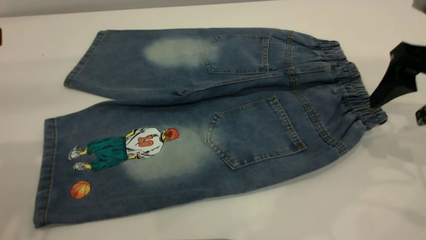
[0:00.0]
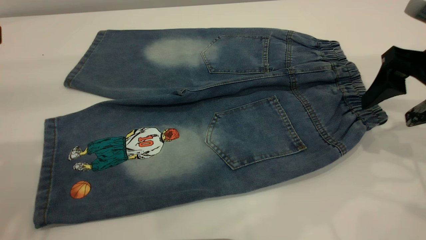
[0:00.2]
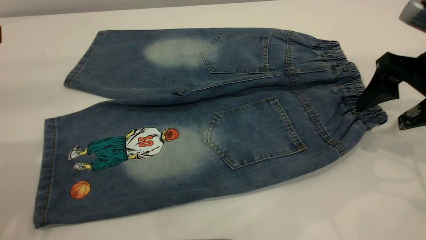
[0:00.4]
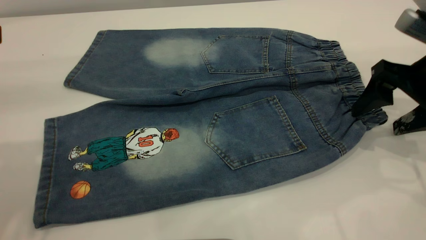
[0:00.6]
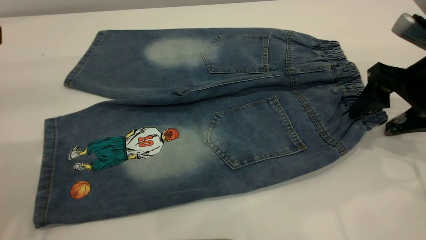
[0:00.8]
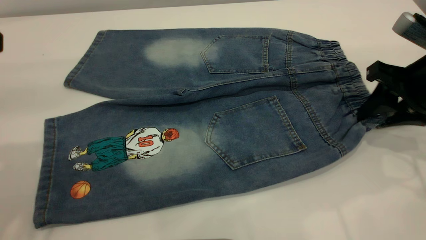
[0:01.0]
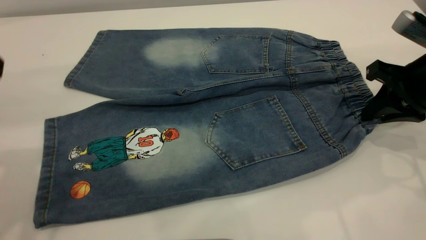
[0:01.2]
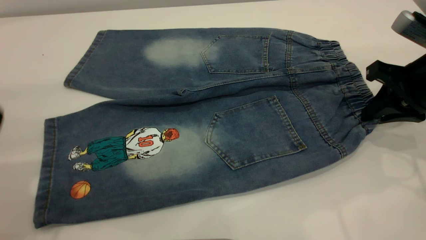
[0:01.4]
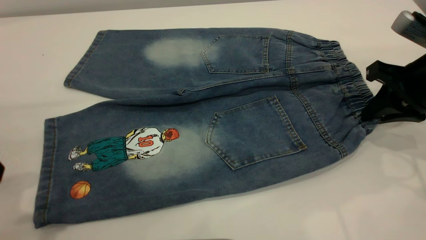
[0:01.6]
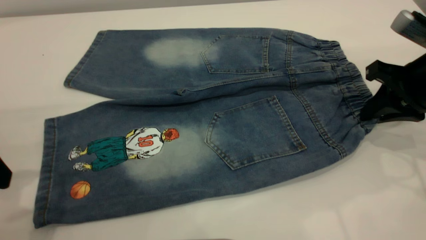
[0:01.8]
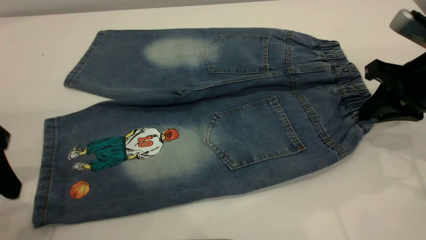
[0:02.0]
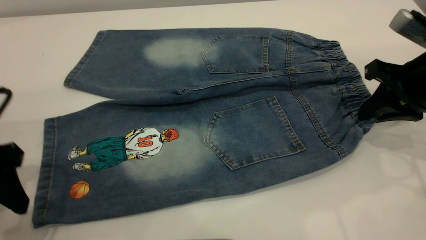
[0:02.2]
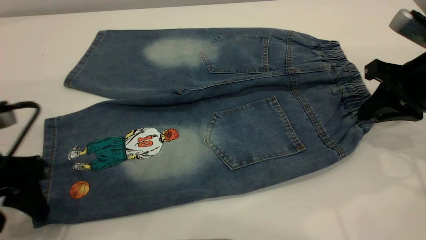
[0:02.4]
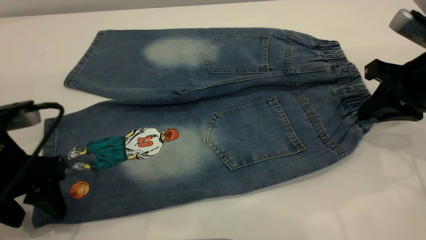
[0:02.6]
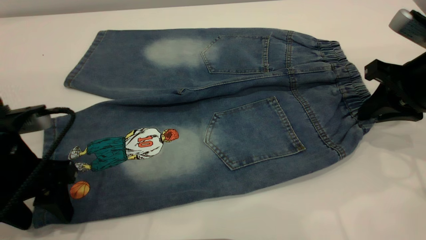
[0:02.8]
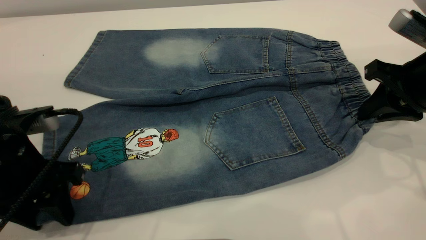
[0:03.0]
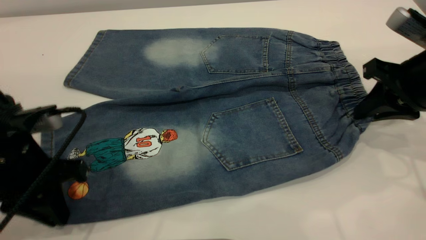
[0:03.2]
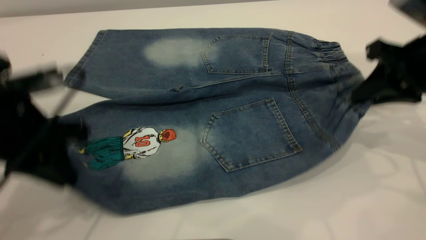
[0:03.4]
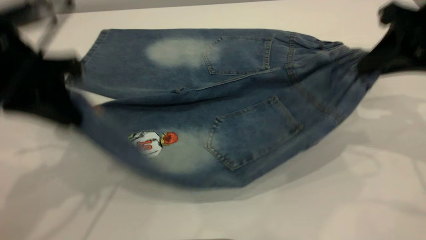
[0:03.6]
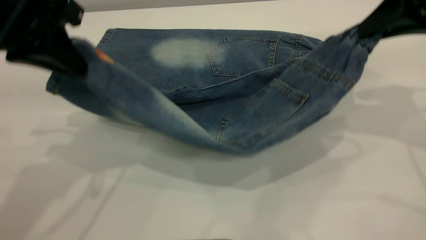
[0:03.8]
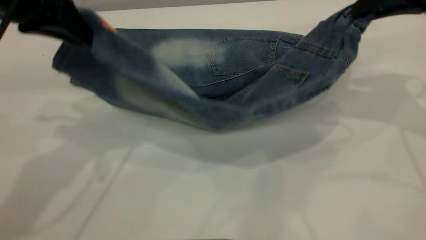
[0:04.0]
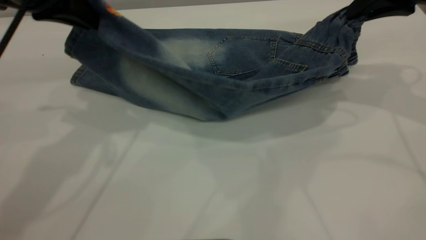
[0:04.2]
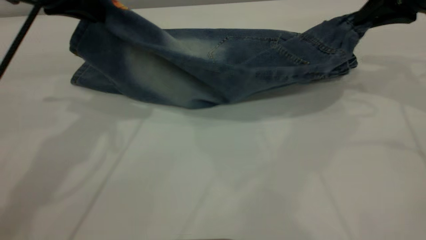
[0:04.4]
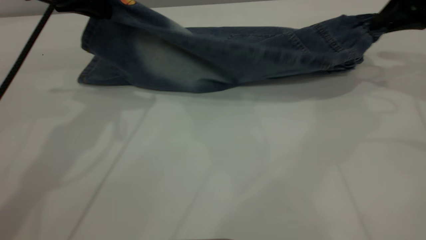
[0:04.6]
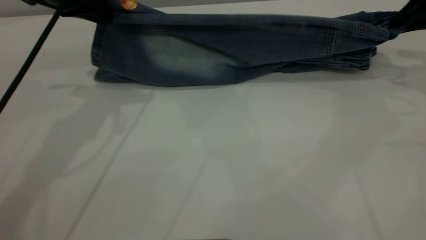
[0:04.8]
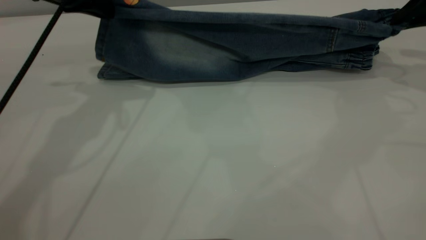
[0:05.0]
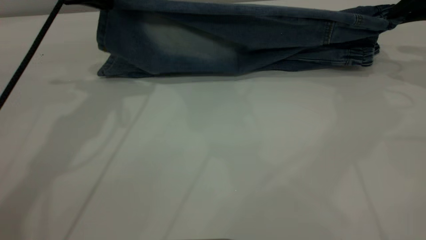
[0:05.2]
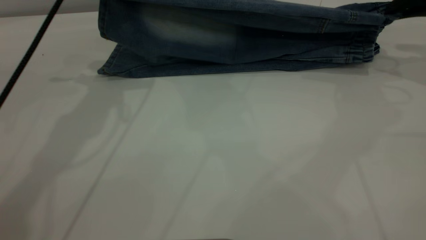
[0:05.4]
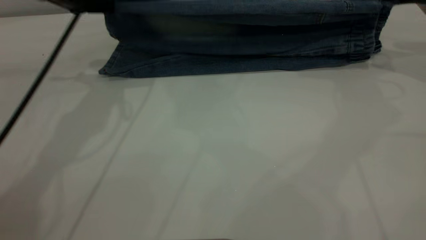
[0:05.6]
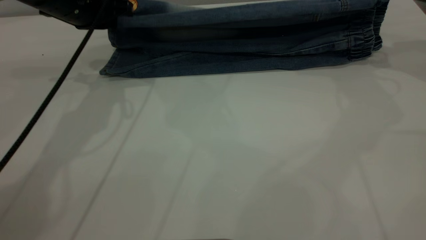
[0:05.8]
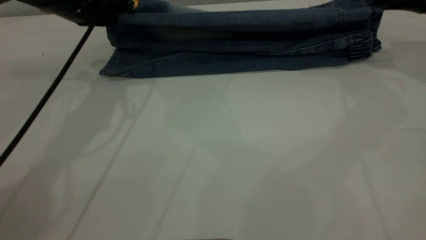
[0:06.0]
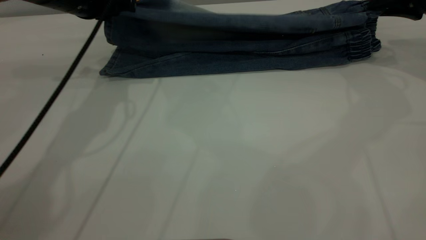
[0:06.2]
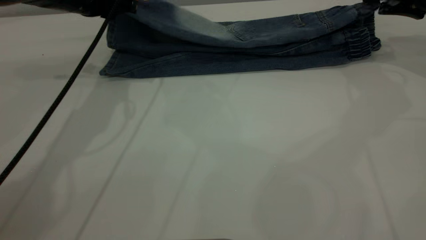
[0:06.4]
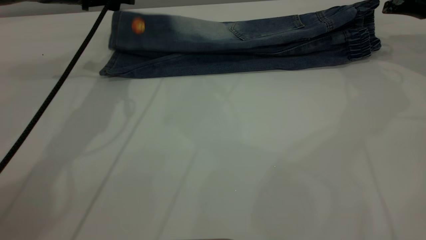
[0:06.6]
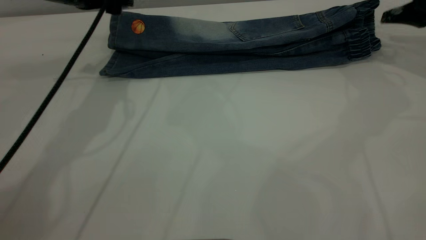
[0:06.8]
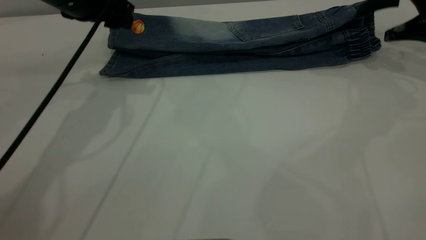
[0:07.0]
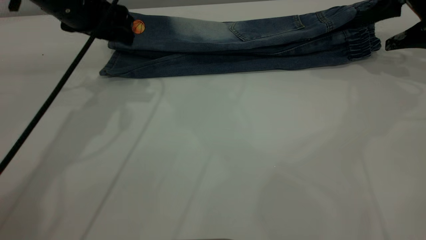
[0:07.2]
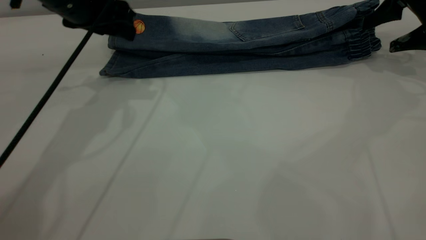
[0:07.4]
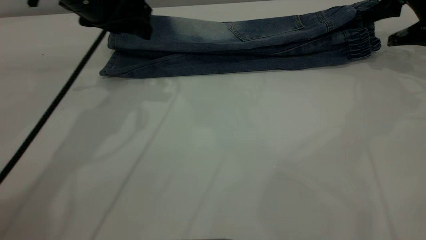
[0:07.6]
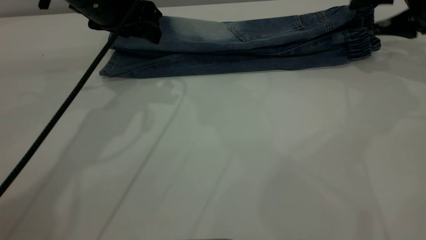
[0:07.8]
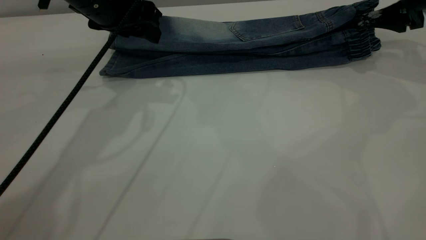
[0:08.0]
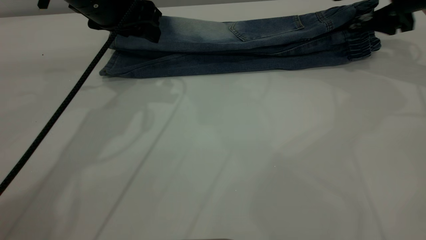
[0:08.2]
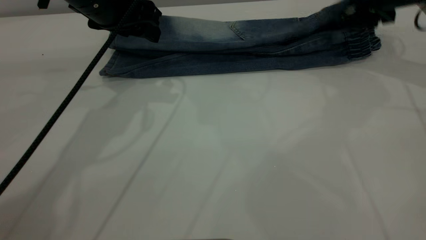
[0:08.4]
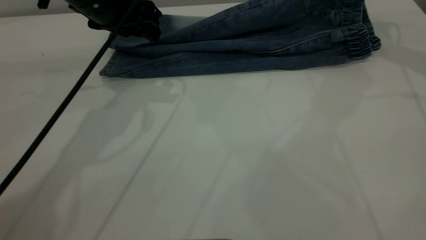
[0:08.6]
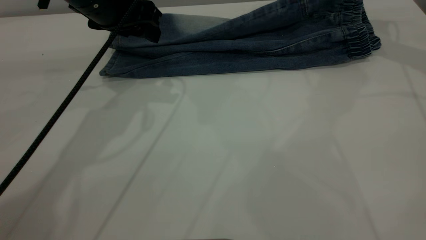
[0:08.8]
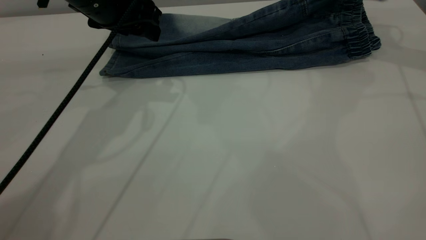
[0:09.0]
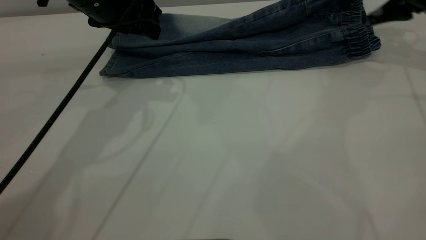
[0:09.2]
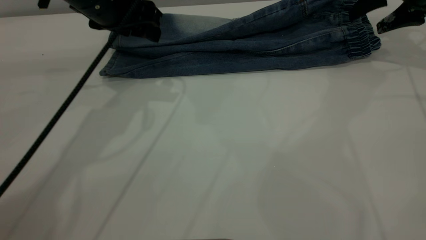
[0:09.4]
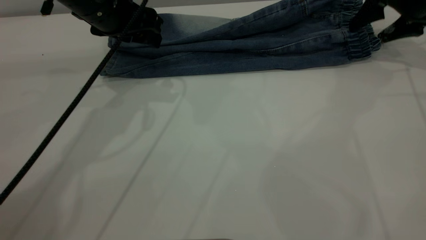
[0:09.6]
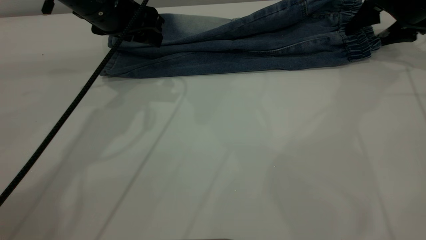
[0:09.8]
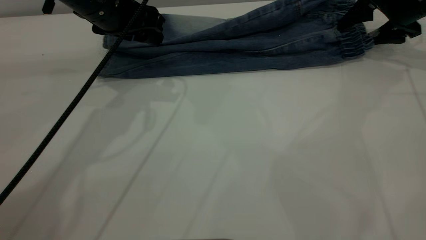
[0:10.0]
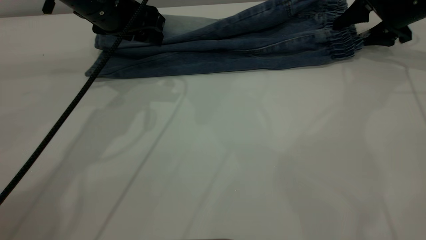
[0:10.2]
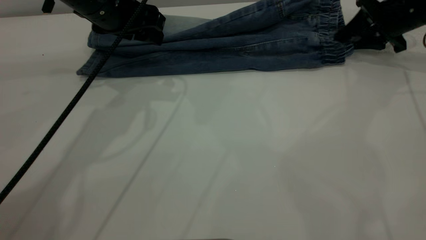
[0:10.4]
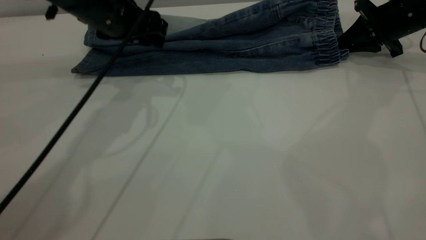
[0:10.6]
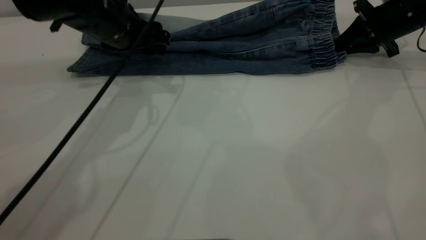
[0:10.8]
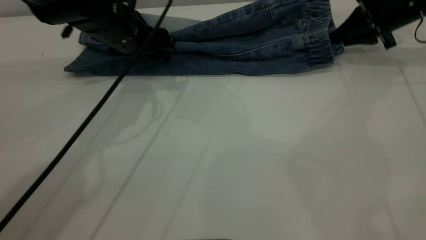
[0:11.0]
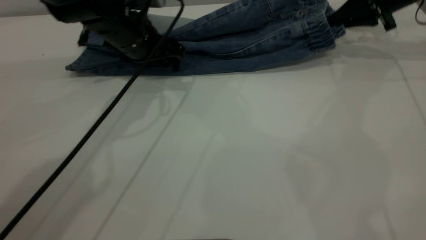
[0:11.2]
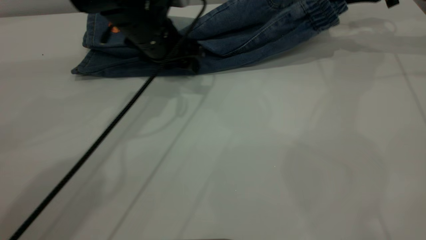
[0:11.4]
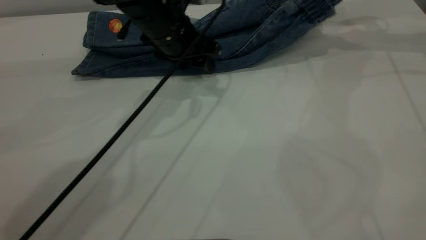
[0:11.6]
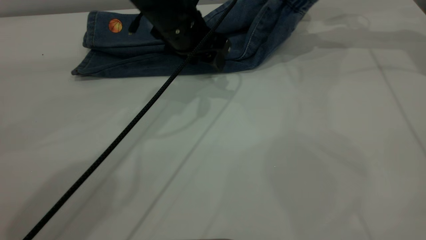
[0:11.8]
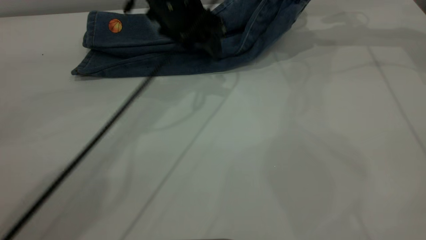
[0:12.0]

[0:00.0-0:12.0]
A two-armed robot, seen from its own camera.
Step, 0:00.0 to 0:06.6: Fold the bottom of the pants upward.
0:00.0 to 0:01.6: The right gripper closes its fingers.
0:01.6 to 0:03.0: The left gripper moves downward, roughly 10 cm, and closes its fingers.
0:03.0 to 0:04.4: The left gripper travels upward and forward by approximately 20 cm, and closes up. Meanwhile the right gripper heads forward and upward, covering roughly 10 cm.
0:04.4 to 0:06.0: The left gripper shifts some 10 cm forward and downward. The right gripper shifts roughly 5 cm to the right.
0:06.0 to 0:07.6: The left gripper opens; the right gripper opens up.
0:07.6 to 0:09.0: The right gripper moves some 10 cm.
0:09.0 to 0:10.4: The right gripper moves downward, approximately 10 cm, and closes.
0:10.4 to 0:12.0: The left gripper goes some 10 cm to the right. Meanwhile the right gripper heads upward and forward, covering approximately 15 cm.

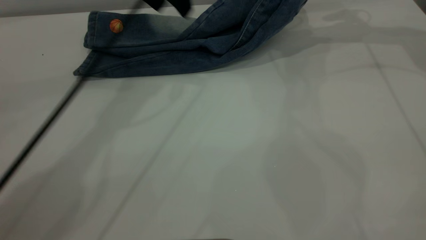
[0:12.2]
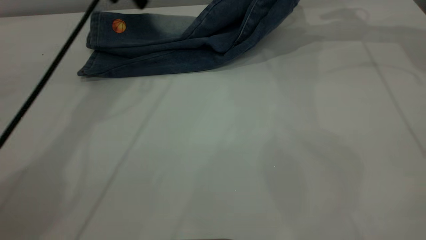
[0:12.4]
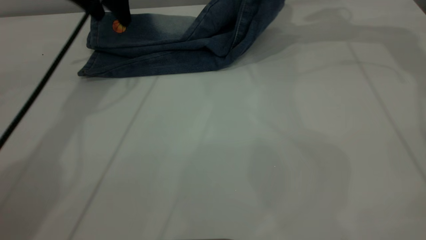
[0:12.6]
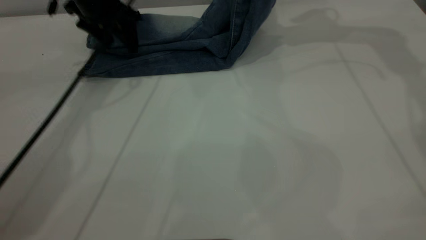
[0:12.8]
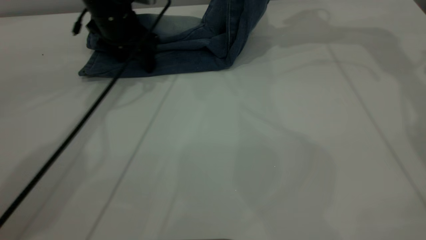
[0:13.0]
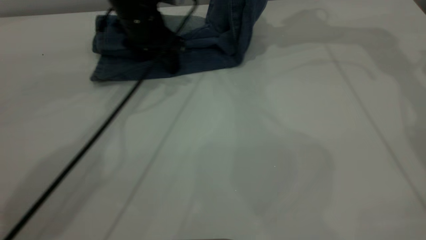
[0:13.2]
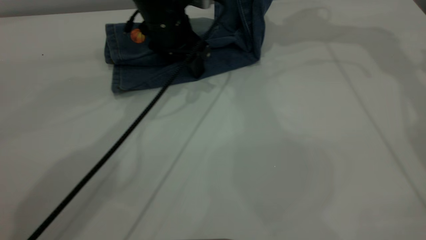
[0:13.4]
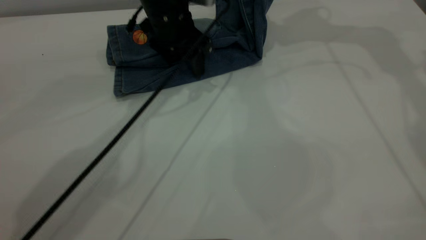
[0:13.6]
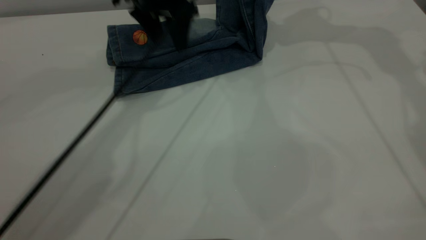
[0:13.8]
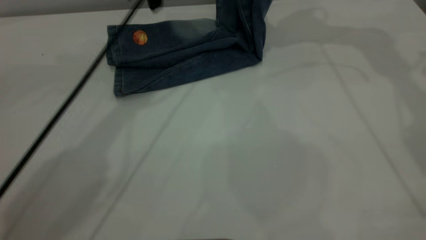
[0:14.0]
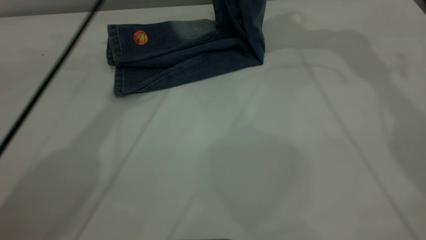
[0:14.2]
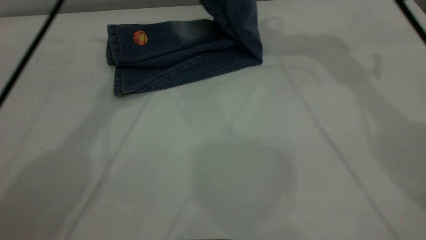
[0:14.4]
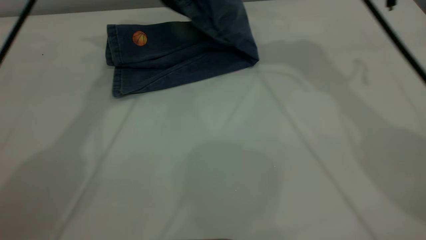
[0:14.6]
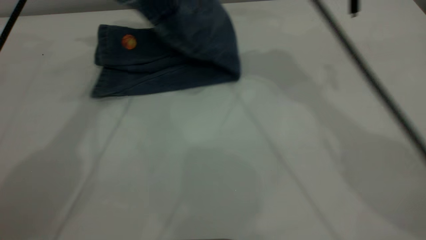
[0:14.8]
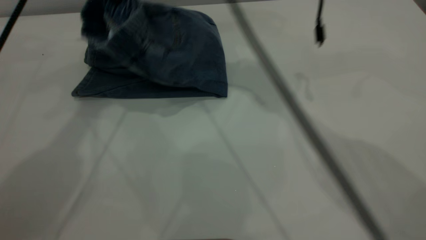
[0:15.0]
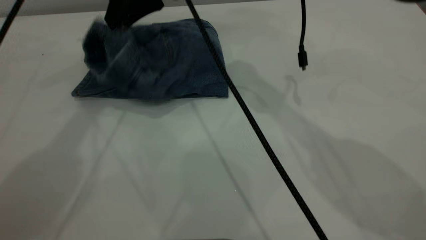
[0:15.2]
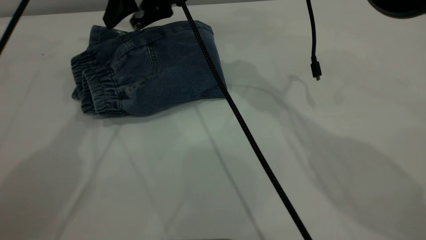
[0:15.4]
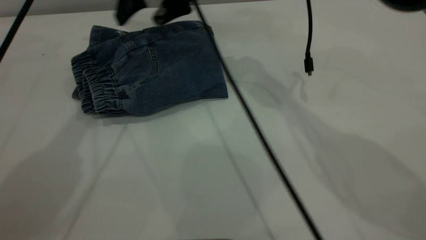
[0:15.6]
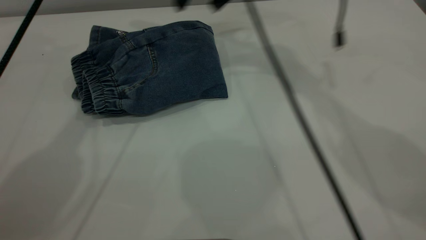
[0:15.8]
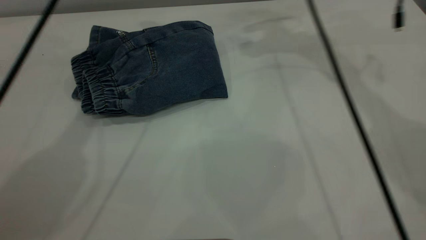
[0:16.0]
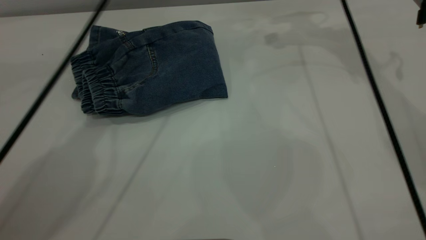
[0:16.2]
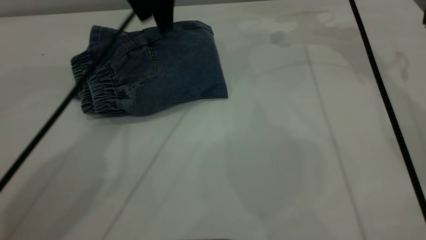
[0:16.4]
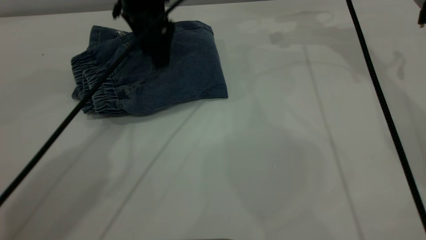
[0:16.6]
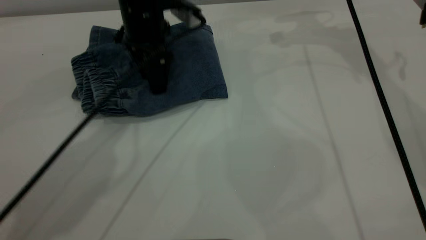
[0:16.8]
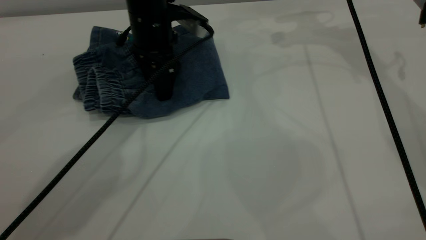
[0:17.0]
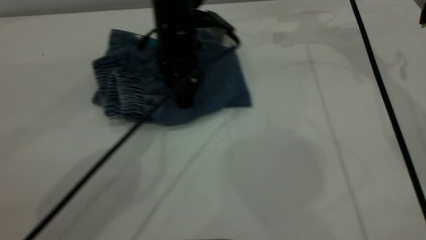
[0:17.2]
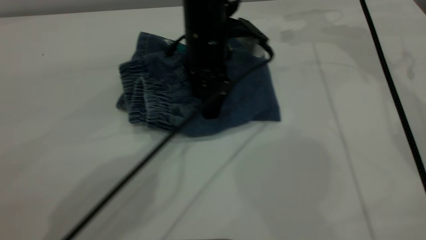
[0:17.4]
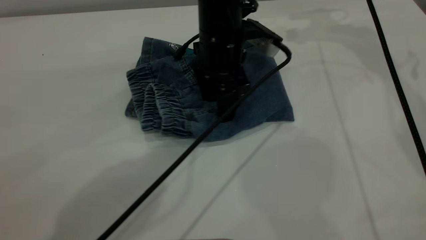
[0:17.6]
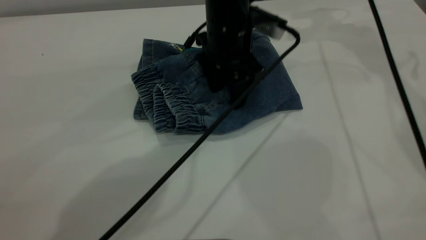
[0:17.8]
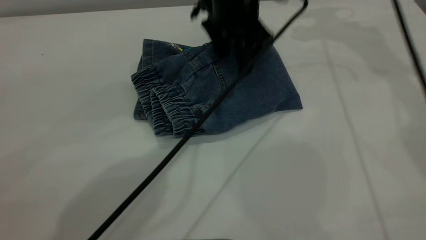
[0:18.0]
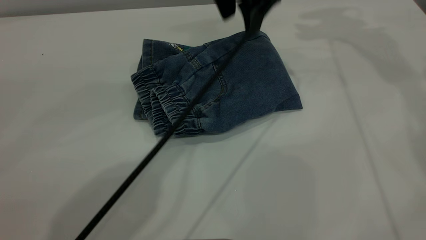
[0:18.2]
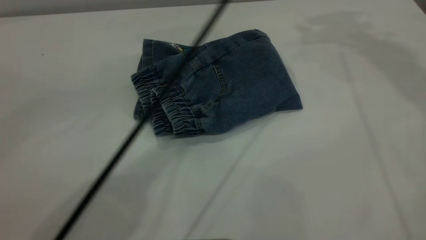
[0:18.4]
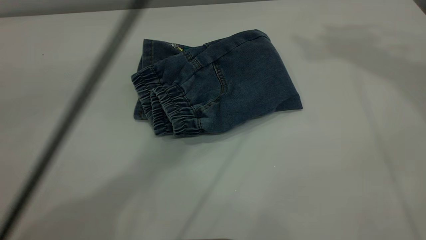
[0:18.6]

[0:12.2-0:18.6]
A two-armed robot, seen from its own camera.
Step, 0:12.2 to 0:16.0: Fold your pants from right to left.
0:12.2 to 0:13.8: The right gripper travels to the left and upward by approximately 10 cm; the left gripper reaches about 10 cm to the left, then returns.
0:13.8 to 0:15.4: The left gripper is displaced upward and to the left by some 20 cm, while the right gripper goes approximately 25 cm to the left and downward, and opens.
0:15.4 to 0:17.0: The right gripper travels to the right by roughly 25 cm. Meanwhile the left gripper travels downward by about 25 cm.
0:17.0 to 0:18.6: The left gripper goes about 30 cm upward, while the right gripper heads upward and backward, covering roughly 35 cm.
